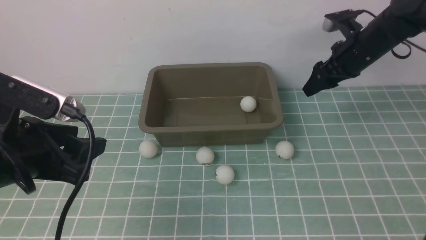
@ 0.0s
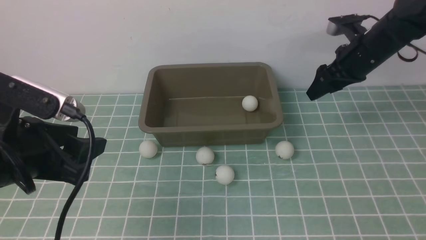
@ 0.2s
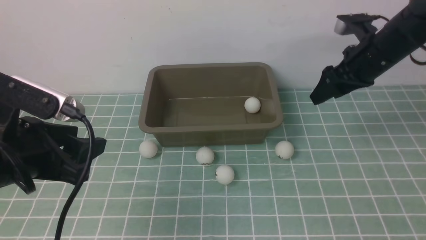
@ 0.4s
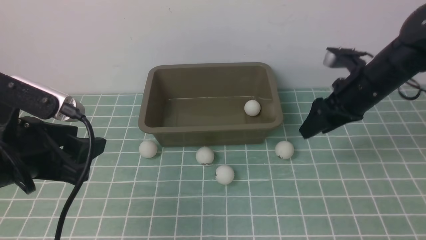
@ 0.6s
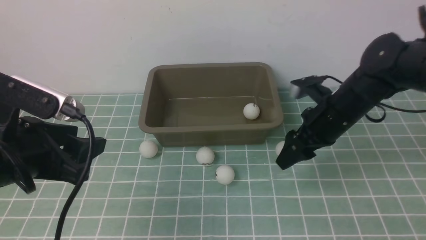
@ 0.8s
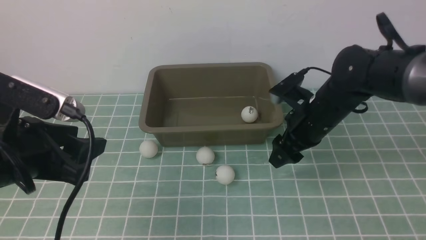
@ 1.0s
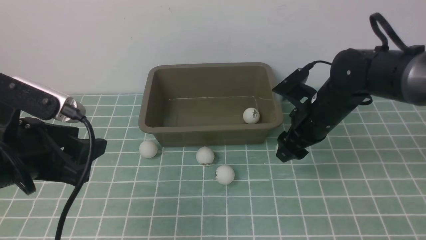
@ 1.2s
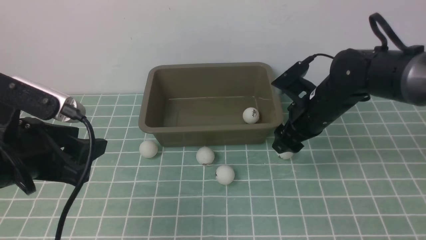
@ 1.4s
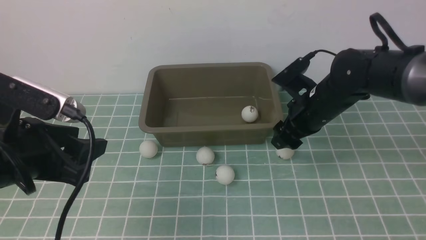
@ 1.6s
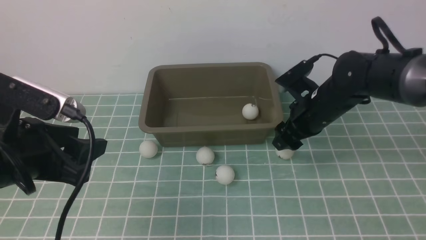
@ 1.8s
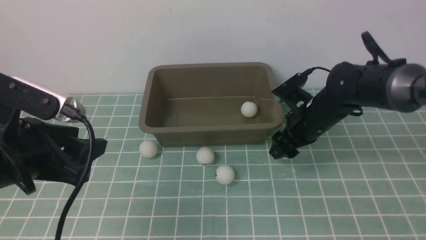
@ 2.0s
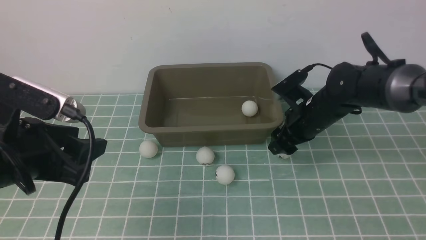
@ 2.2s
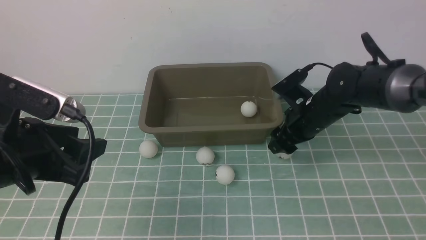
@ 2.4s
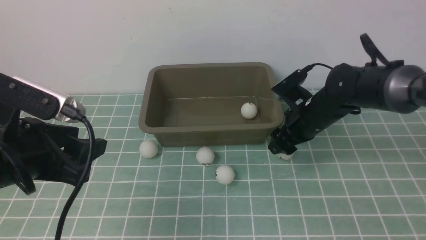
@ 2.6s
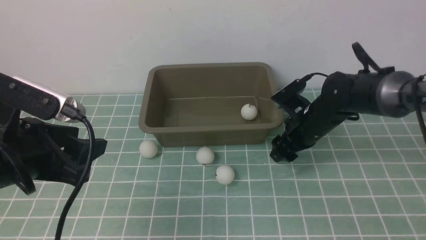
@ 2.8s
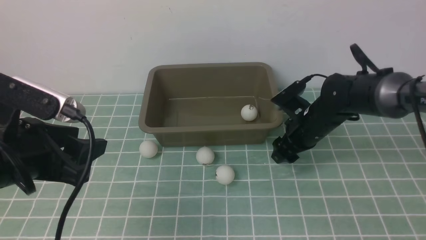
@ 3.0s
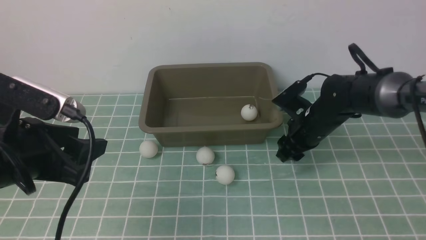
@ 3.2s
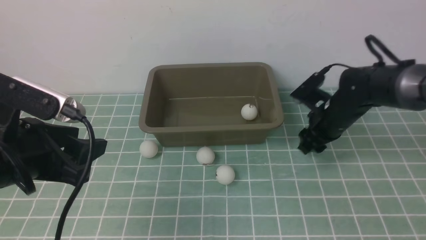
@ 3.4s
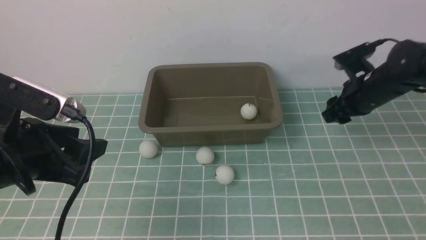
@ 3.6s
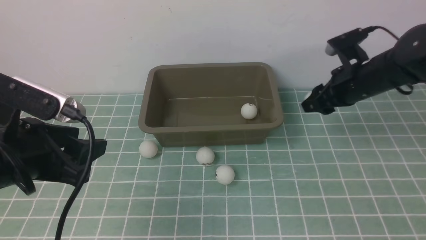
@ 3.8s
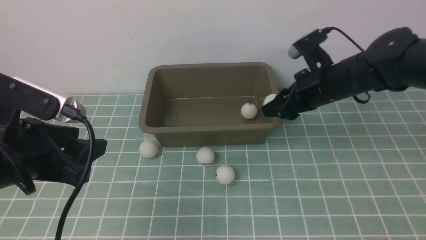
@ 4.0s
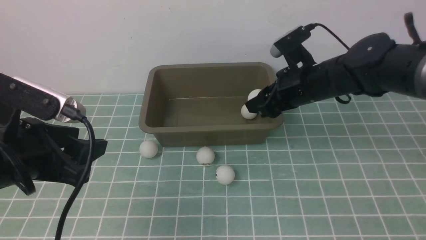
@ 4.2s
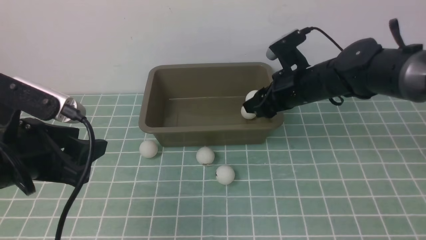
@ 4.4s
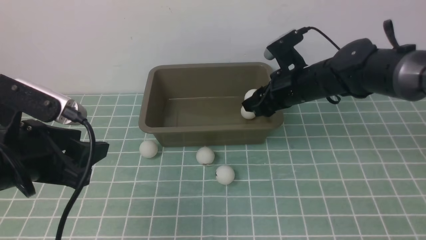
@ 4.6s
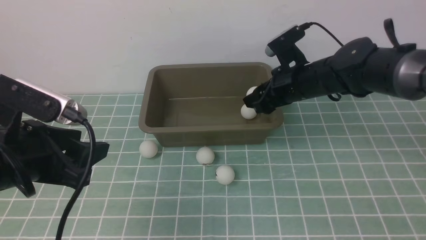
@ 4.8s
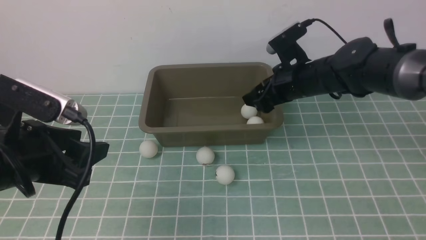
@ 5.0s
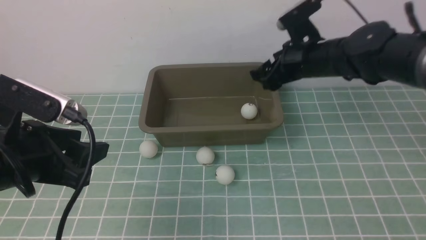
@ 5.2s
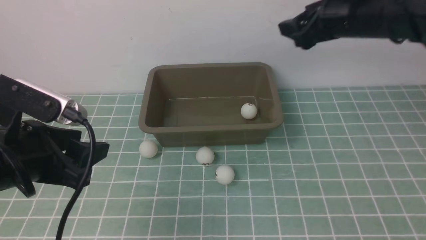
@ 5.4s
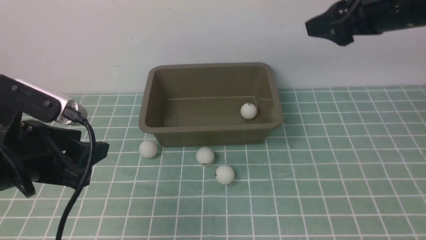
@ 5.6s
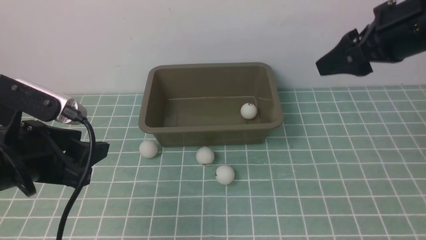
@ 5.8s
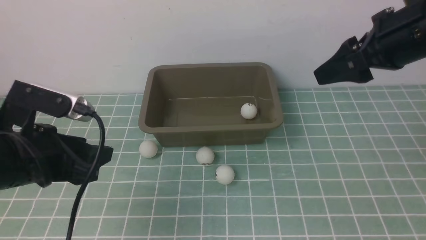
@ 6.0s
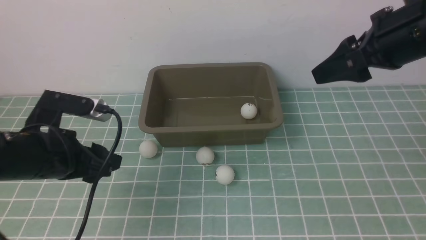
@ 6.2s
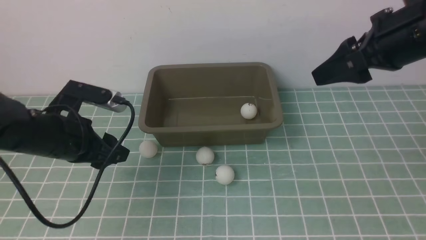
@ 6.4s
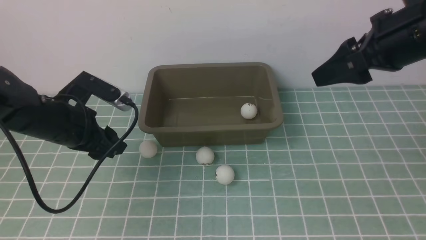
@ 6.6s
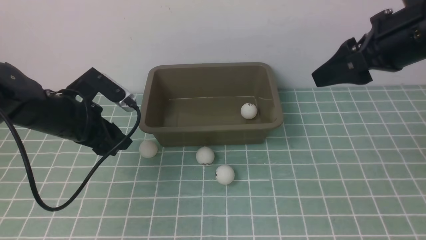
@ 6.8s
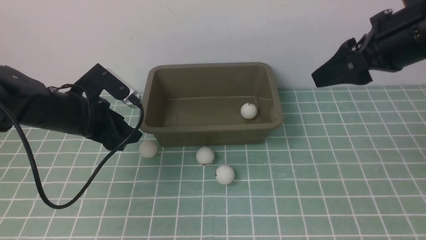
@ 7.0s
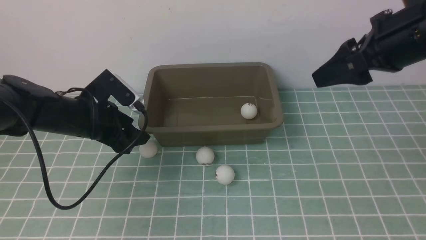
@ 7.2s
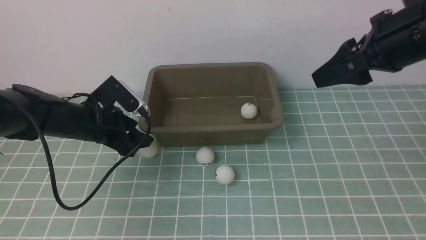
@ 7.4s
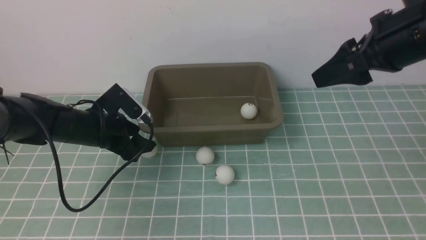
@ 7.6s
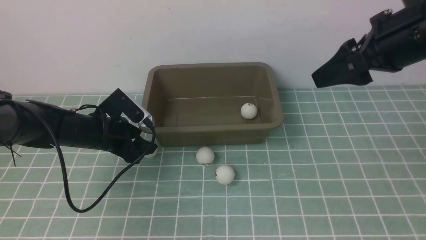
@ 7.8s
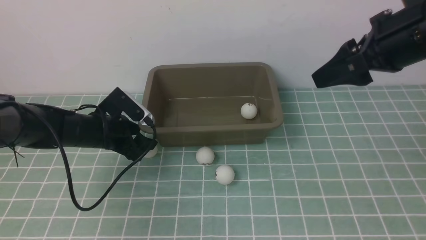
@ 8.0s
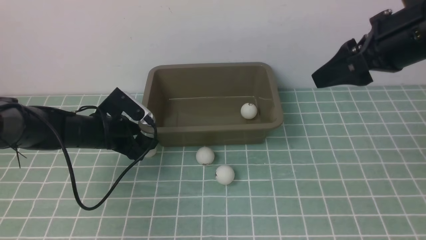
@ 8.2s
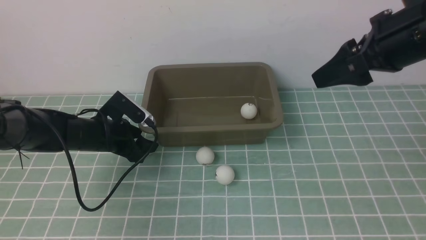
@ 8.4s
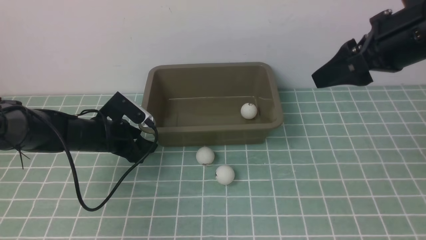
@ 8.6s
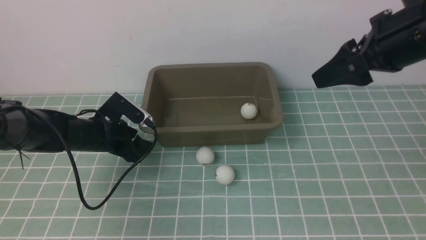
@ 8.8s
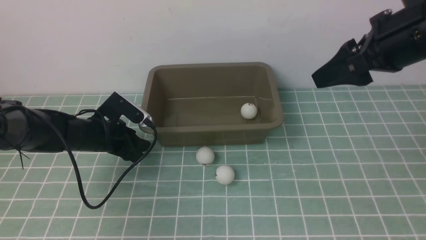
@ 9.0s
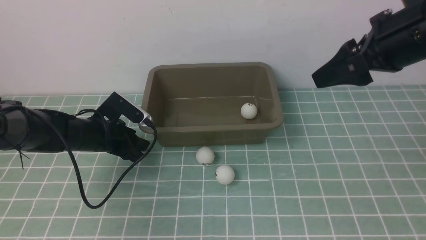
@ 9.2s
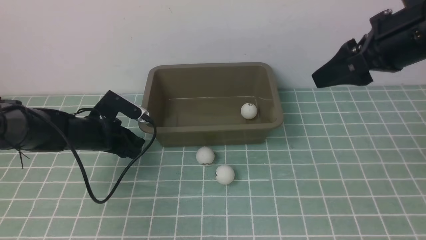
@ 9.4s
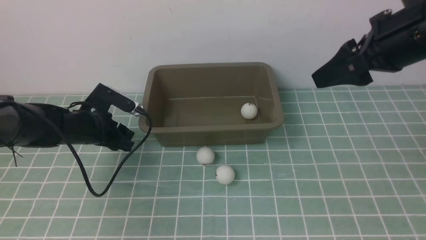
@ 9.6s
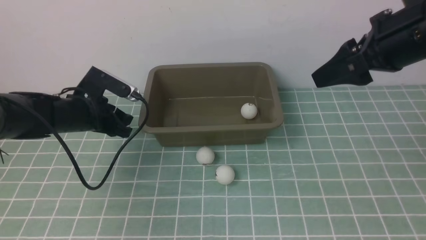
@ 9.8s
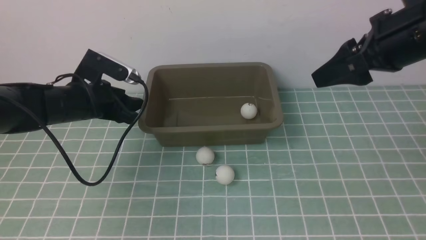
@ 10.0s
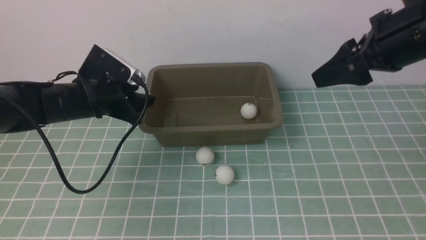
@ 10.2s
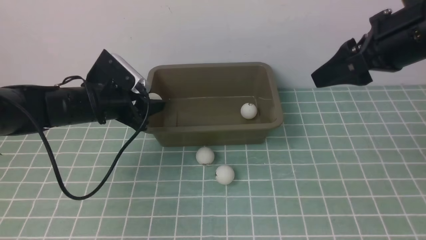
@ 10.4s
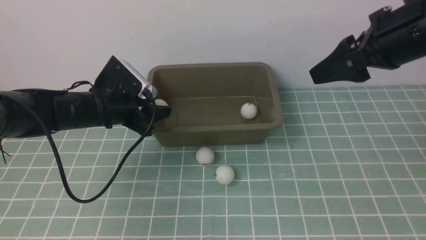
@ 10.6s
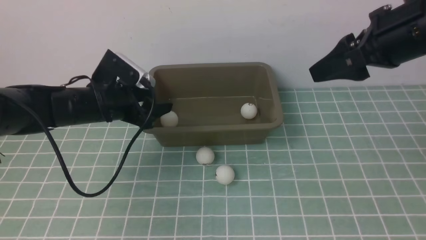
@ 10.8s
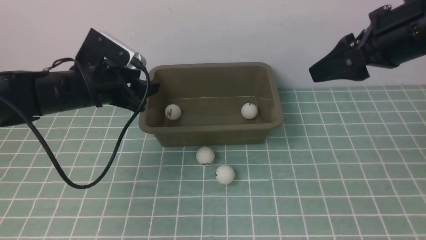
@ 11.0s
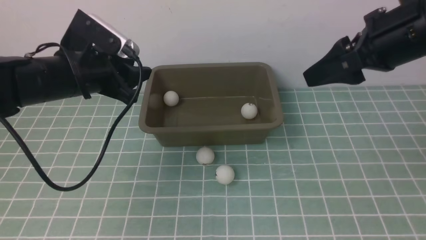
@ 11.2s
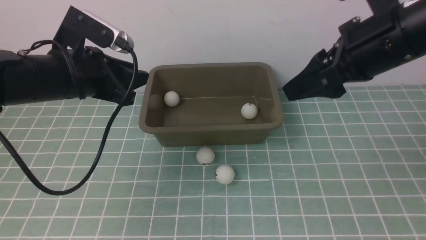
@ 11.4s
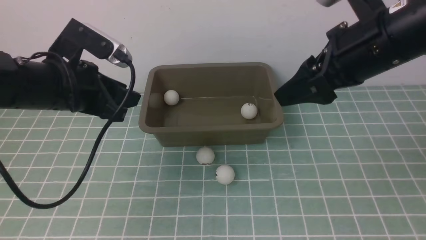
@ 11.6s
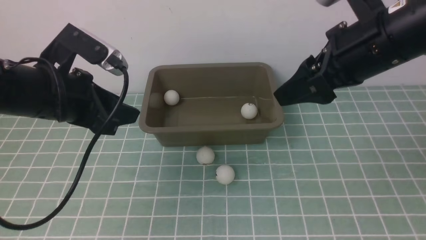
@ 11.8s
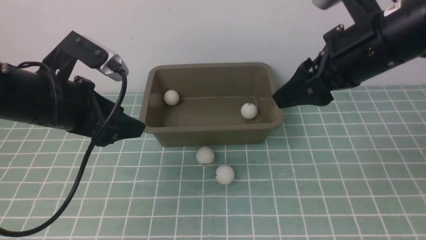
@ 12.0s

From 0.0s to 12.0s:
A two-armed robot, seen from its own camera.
Step, from 0.0s to 3.6s: use the right arm to clamp the table tennis ball closest to it.
Step, from 3.8s to 5.0s: use the right arm to put the table tennis ball into the box.
Step, from 5.2s to 9.8s: use the left arm to clamp the table tennis ball closest to it.
Step, from 10.0s to 11.0s: use the left arm to put the table tennis ball into the box.
From 0.0s to 1.6s: The right gripper shifts roughly 15 cm backward, to the left and downward.
From 1.6s to 3.0s: The right gripper travels downward by approximately 5 cm.
From 3.0s to 4.4s: The right gripper shifts about 10 cm upward, and reaches roughly 5 cm to the right, then returns.
From 4.4s to 6.0s: The right gripper goes roughly 20 cm upward, backward and to the right.
From 6.0s to 7.6s: The left gripper moves forward and downward, about 20 cm.
From 7.6s to 9.0s: The grippers move only a little.
From 9.0s to 10.4s: The left gripper shifts roughly 10 cm upward.
From 10.4s to 12.0s: The left gripper moves backward and upward, about 15 cm. Meanwhile the right gripper goes approximately 5 cm to the left.

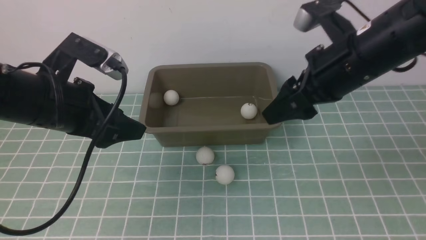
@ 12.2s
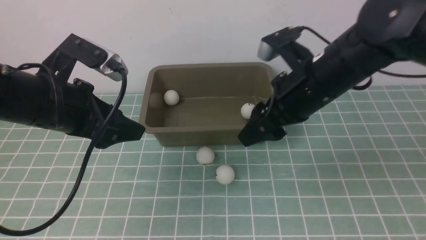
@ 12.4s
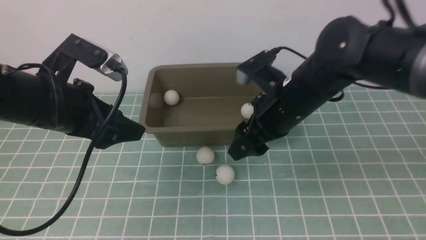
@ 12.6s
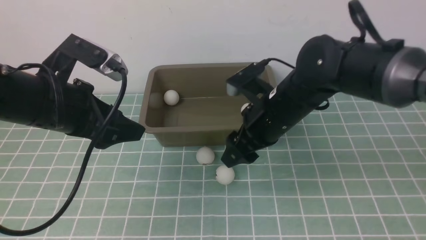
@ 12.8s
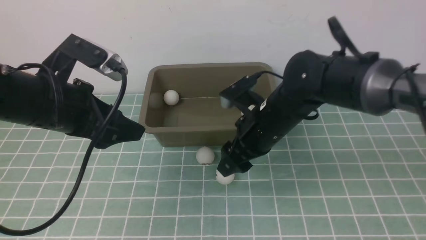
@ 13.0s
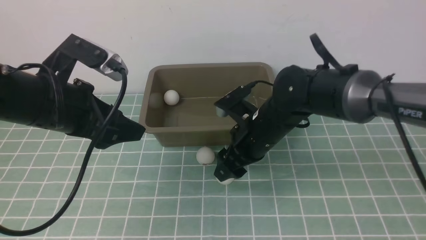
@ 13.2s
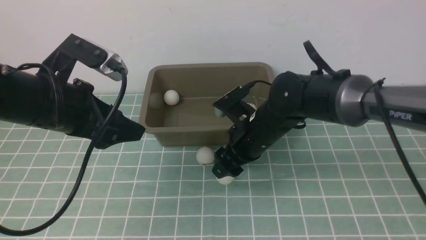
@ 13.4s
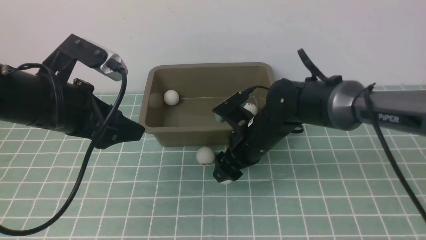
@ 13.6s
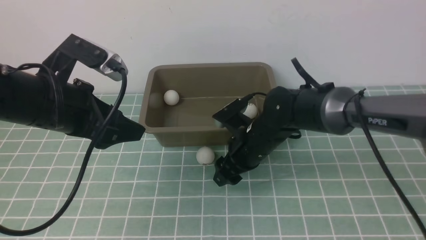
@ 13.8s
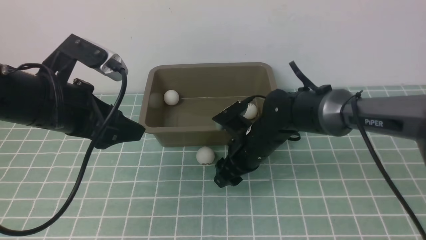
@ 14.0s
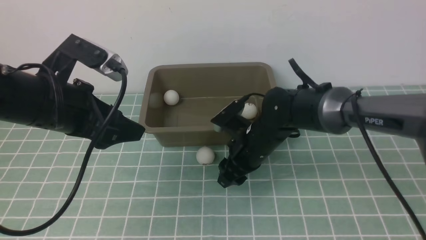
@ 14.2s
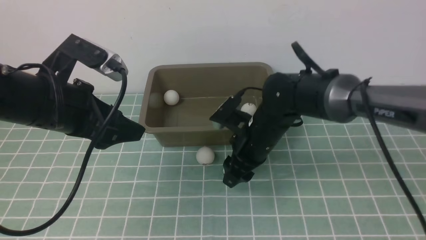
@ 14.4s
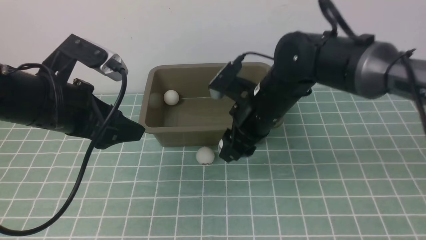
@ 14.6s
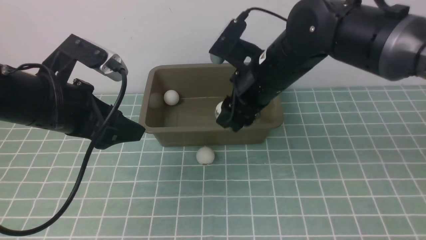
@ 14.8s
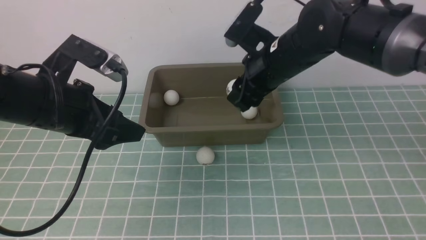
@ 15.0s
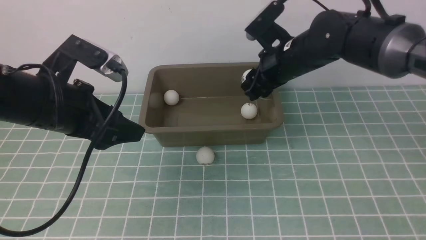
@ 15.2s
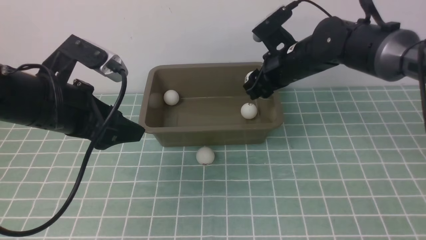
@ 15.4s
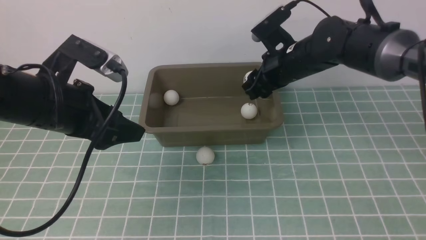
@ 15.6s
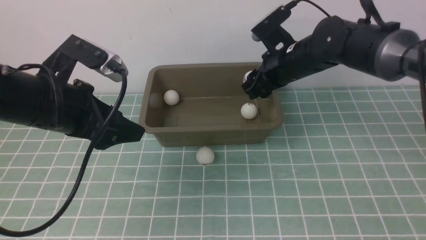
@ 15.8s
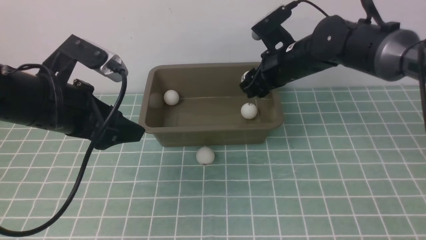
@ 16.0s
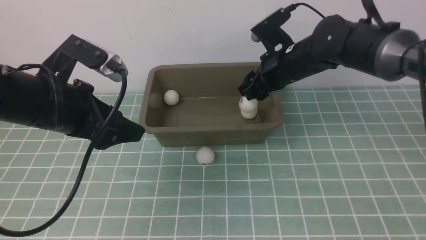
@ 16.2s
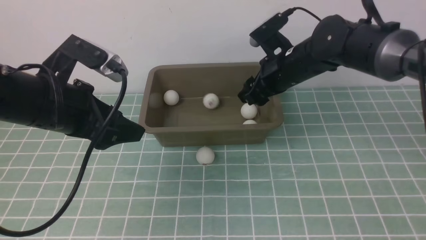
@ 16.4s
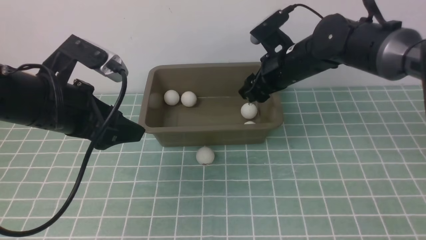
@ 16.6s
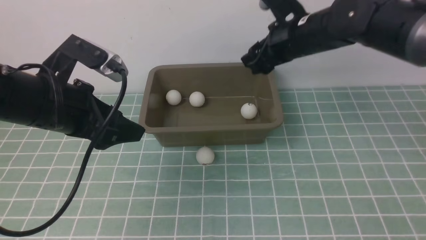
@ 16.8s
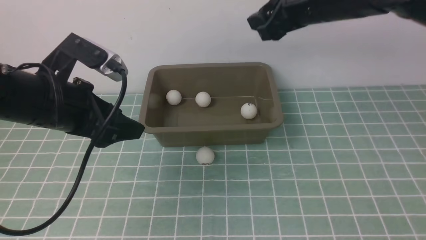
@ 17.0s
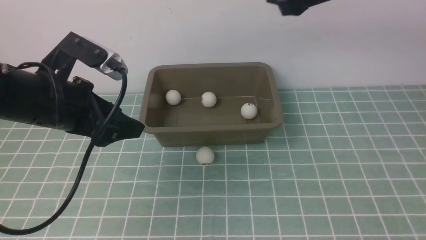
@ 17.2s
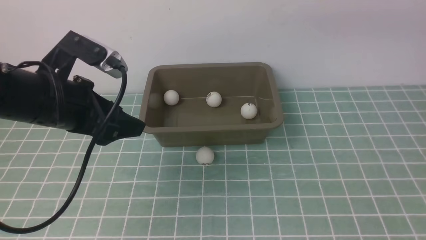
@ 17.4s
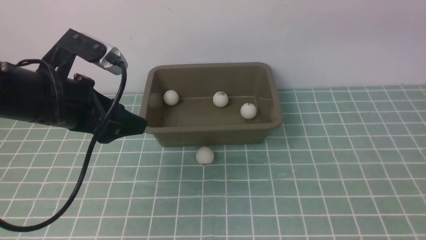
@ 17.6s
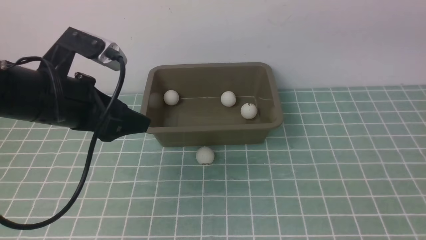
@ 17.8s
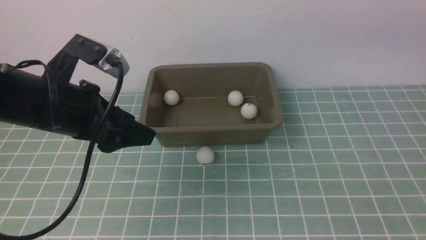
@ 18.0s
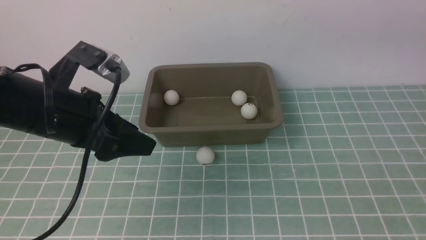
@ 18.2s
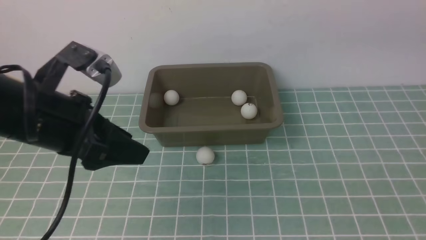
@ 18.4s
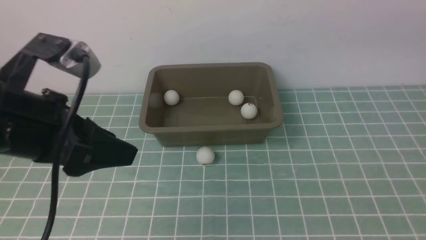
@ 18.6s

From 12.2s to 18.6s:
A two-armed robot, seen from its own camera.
Step, from 12.2s to 14.4s: use the right arm to clamp the table tennis ball closest to it.
Step, from 14.6s to 16.4s: use the right arm to put the table tennis ball into the box.
From 12.2s to 13.8s: The right gripper goes approximately 20 cm downward and to the left.
From 13.8s to 15.4s: The right gripper travels upward, forward and to the right by approximately 15 cm.
From 15.4s to 17.0s: The right gripper heads upward, covering approximately 15 cm.
From 17.0s to 18.6s: The left gripper shifts roughly 5 cm backward; the right gripper is displaced backward, to the right and upward by approximately 15 cm.
